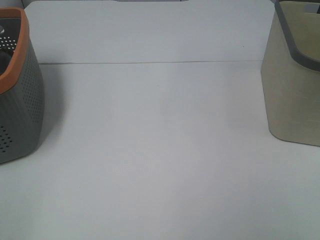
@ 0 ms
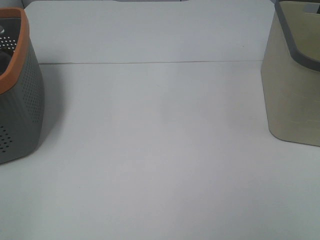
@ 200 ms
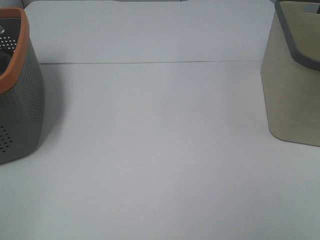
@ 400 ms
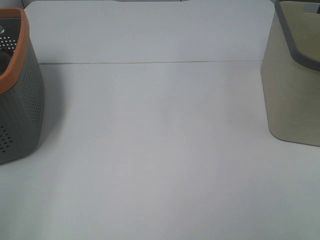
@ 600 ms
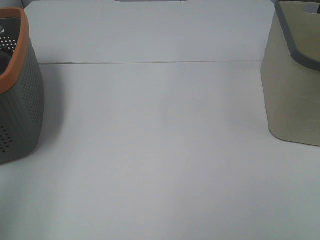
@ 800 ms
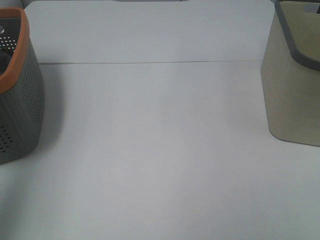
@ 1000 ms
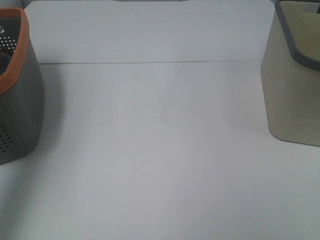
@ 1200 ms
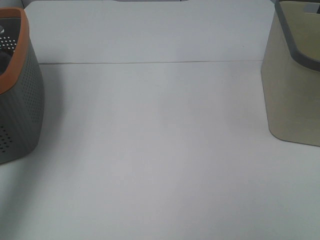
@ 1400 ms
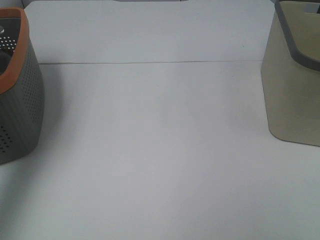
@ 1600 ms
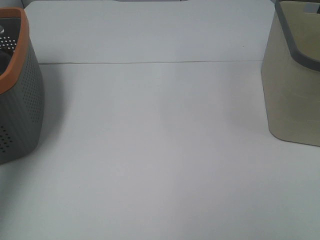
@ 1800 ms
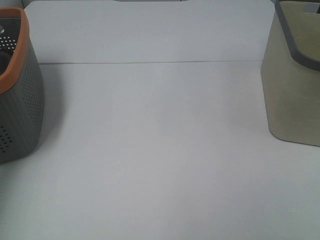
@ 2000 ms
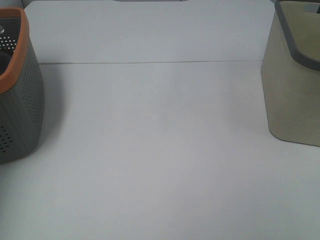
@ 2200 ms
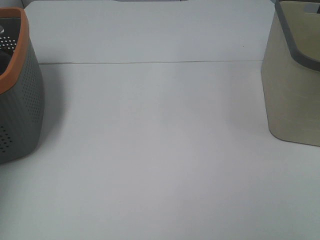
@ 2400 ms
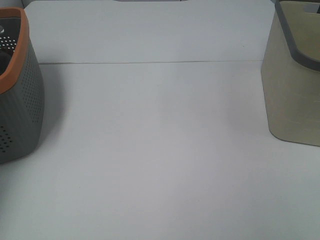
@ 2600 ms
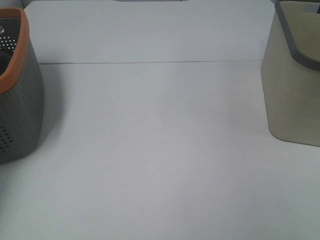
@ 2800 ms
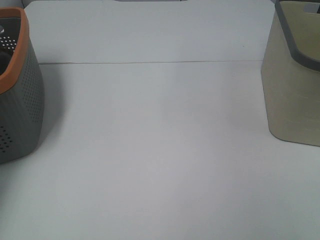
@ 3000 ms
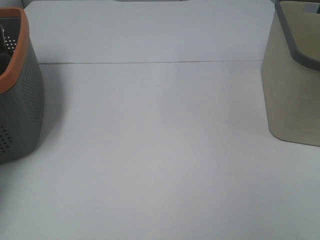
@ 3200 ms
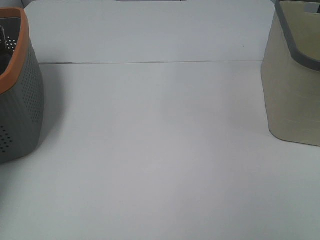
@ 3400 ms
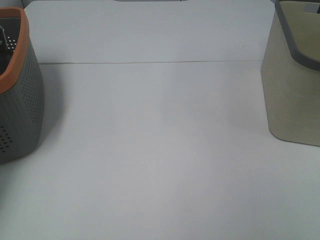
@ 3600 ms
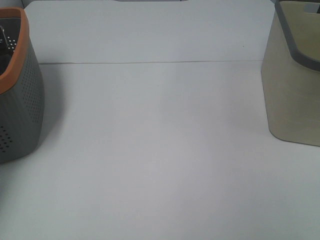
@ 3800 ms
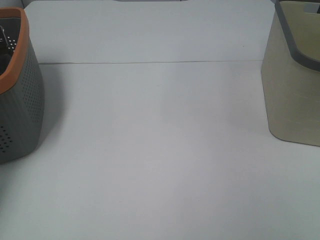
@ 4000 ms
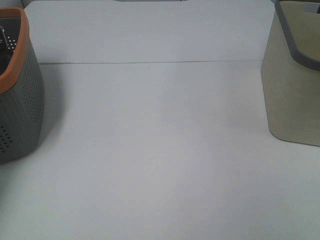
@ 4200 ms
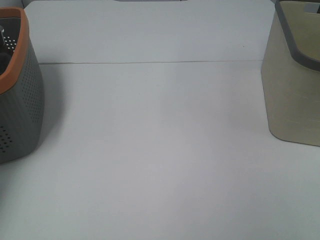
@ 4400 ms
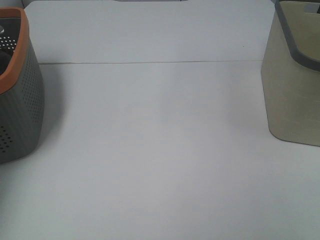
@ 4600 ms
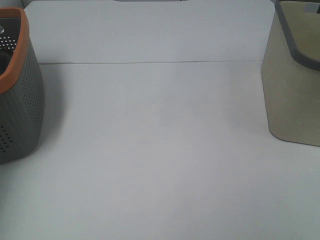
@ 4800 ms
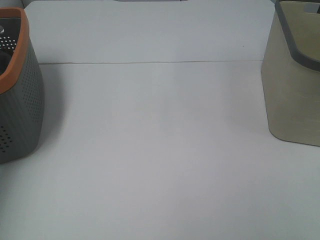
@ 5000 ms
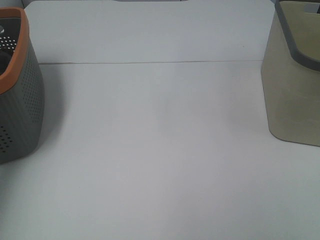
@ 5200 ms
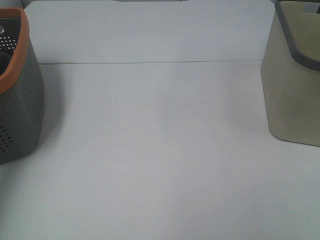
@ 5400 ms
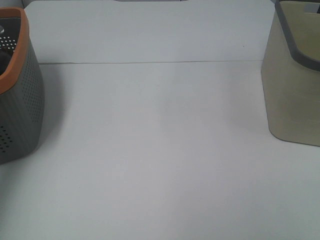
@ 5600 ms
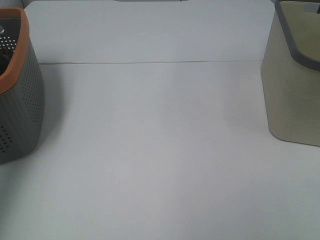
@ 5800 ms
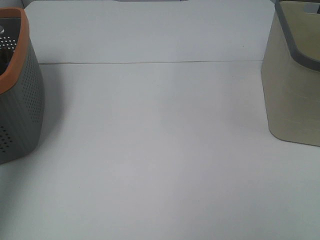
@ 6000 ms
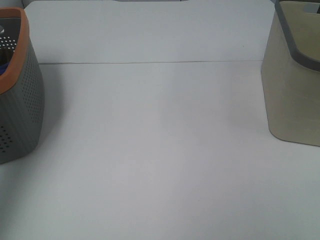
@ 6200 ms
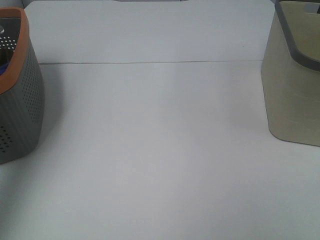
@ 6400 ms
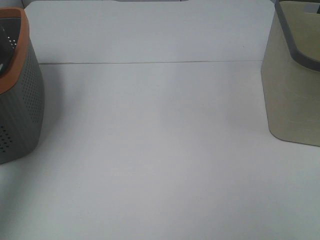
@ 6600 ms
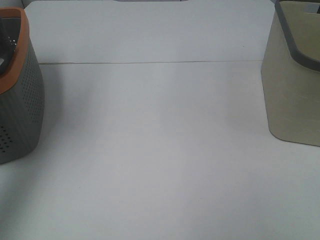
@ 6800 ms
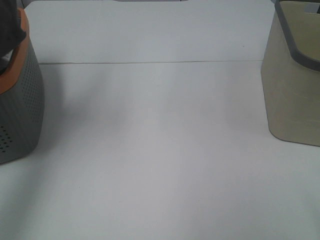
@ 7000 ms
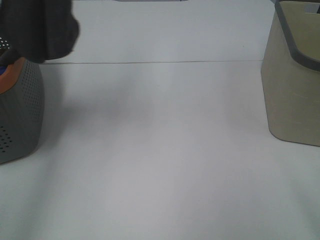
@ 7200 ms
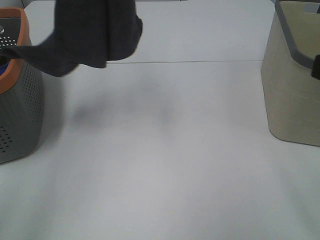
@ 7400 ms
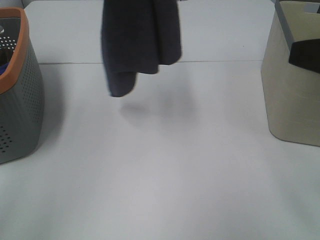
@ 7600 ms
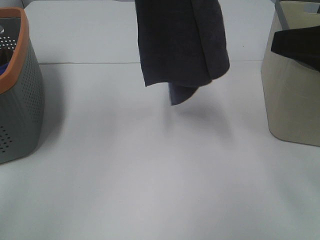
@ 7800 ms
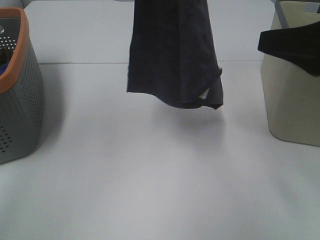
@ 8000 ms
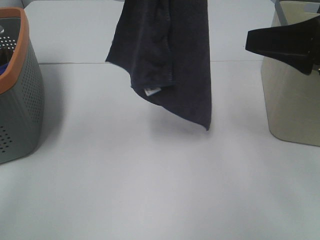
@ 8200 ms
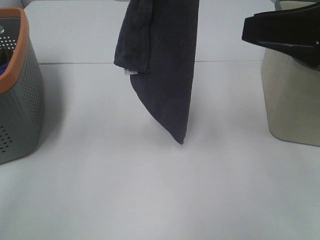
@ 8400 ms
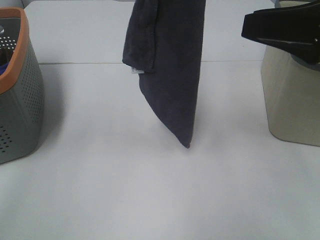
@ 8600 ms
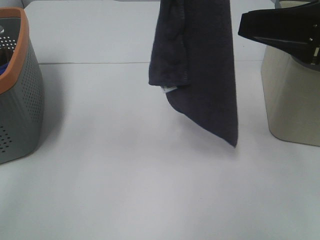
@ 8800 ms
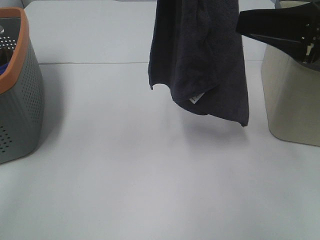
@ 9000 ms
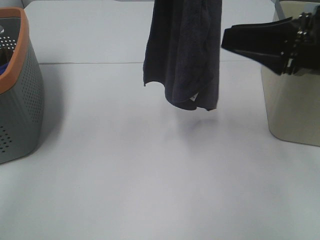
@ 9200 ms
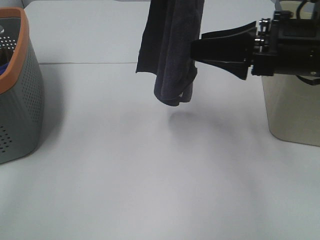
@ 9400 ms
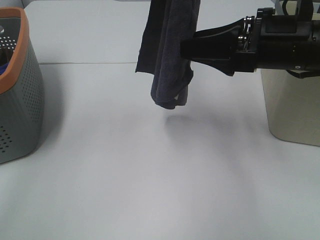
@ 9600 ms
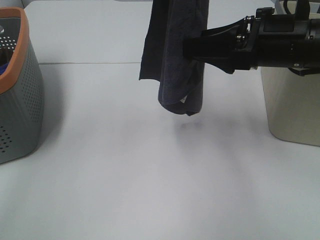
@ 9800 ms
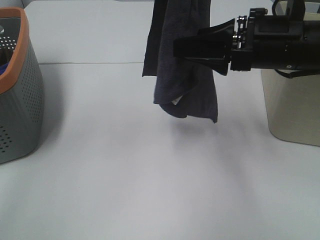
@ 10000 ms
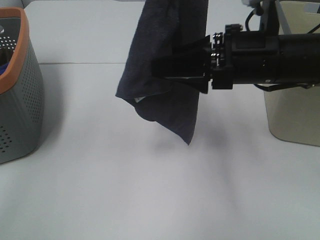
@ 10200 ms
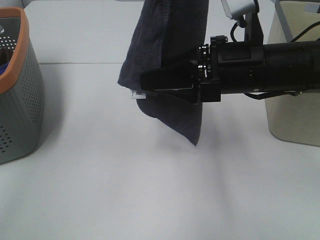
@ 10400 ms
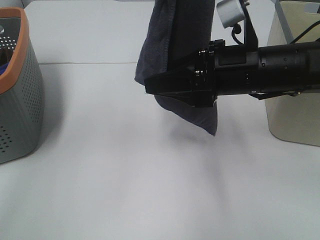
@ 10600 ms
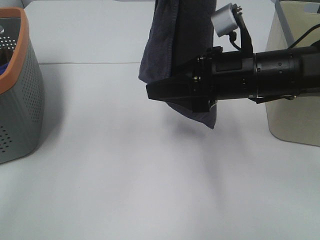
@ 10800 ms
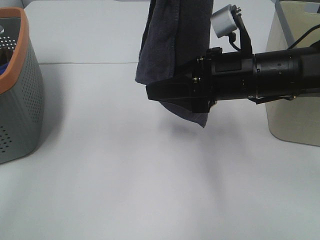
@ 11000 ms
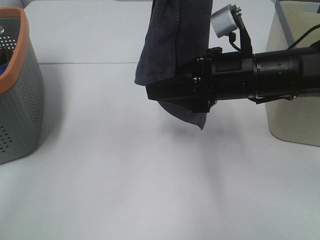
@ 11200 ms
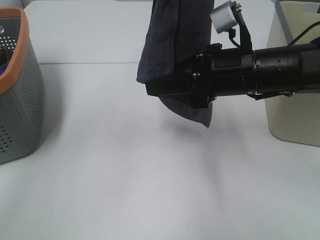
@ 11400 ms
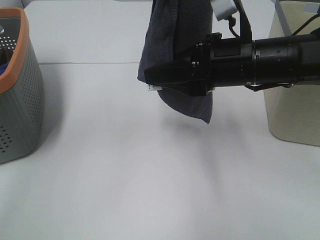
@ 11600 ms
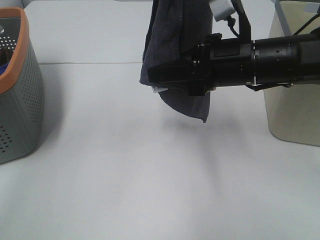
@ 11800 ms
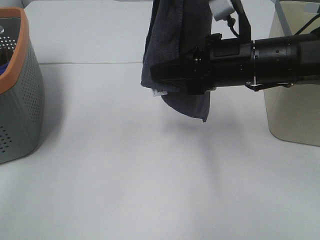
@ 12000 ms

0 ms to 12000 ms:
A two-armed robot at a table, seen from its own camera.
Task of the whole recording: Remove the towel and place it.
Step, 6000 ms to 10600 ms: Right hand: grab a corner of the grey towel and straighten it.
0 ms to 1600 ms: The left gripper shifts some 35 cm forward and upward.
1600 ms to 3000 ms: The left gripper moves downward and forward, some 30 cm.
4400 ms to 6000 ms: The left gripper goes approximately 35 cm upward and backward.
6000 ms to 7600 ms: The left gripper travels to the right by approximately 25 cm. The right gripper heads forward, covering roughly 15 cm.
7600 ms to 9000 ms: The right gripper shifts roughly 10 cm forward, while the left gripper is displaced to the right by about 5 cm.
9000 ms to 10400 ms: The right gripper shifts approximately 10 cm to the left and downward.
10400 ms to 12000 ms: The right gripper closes.

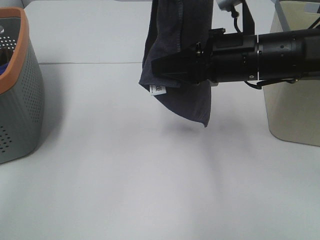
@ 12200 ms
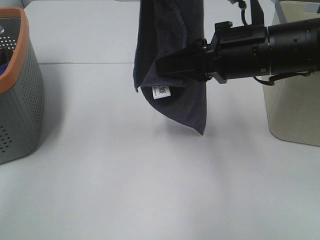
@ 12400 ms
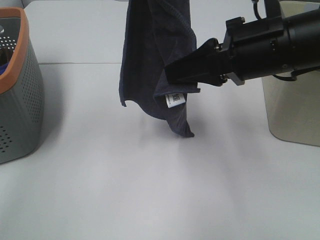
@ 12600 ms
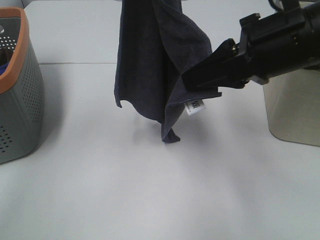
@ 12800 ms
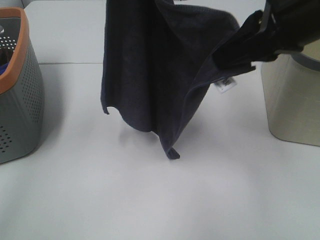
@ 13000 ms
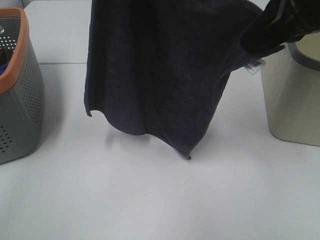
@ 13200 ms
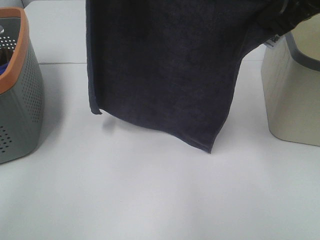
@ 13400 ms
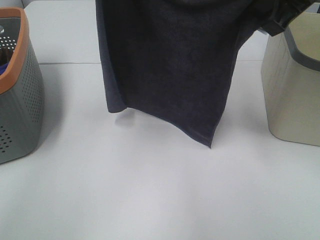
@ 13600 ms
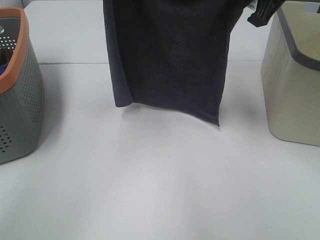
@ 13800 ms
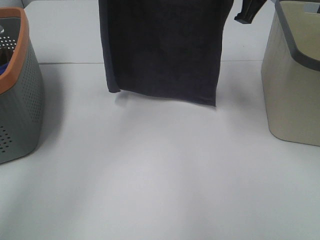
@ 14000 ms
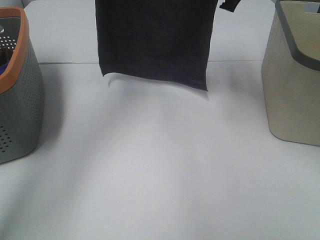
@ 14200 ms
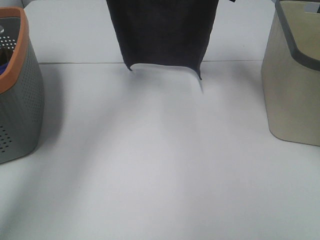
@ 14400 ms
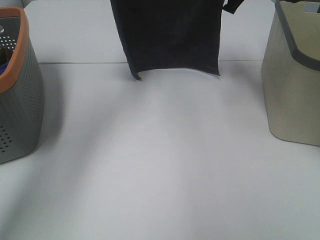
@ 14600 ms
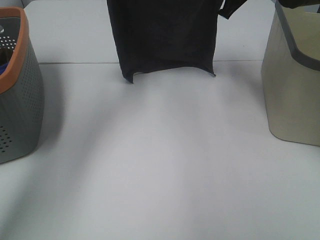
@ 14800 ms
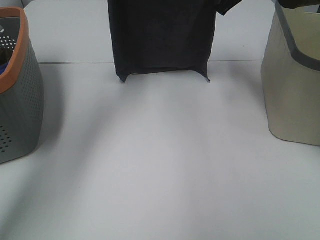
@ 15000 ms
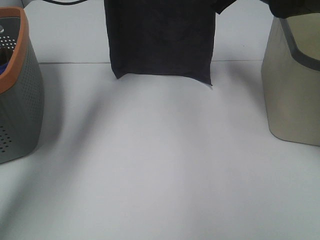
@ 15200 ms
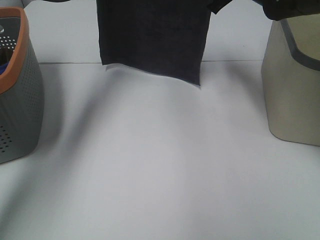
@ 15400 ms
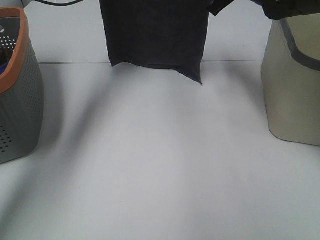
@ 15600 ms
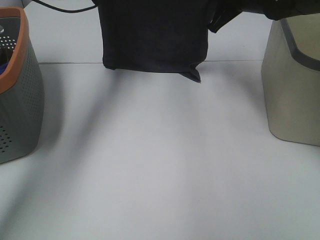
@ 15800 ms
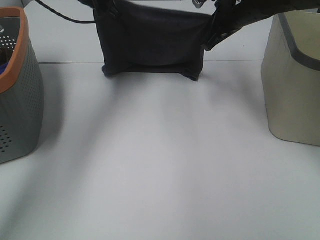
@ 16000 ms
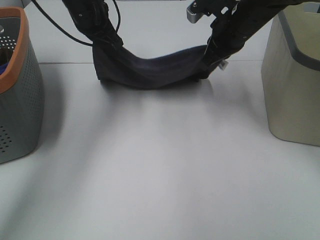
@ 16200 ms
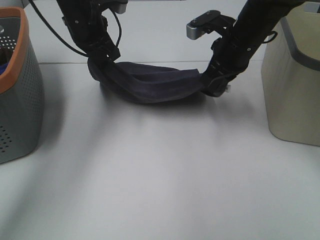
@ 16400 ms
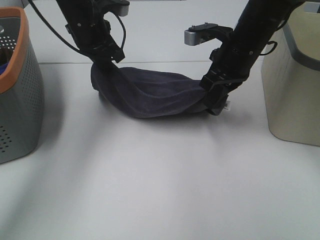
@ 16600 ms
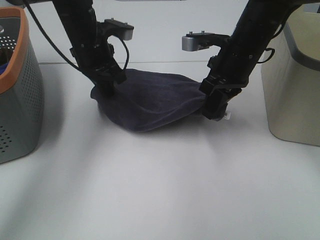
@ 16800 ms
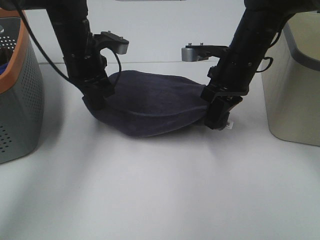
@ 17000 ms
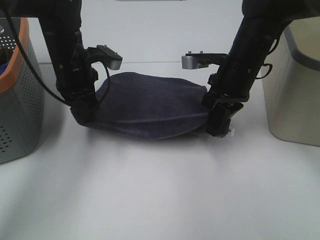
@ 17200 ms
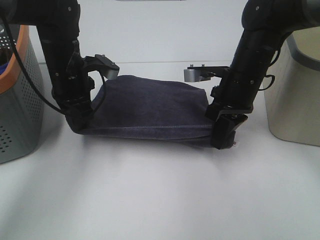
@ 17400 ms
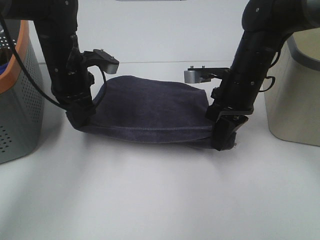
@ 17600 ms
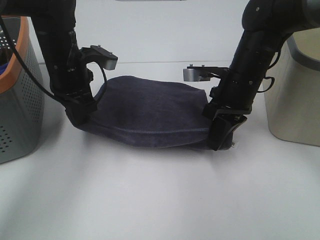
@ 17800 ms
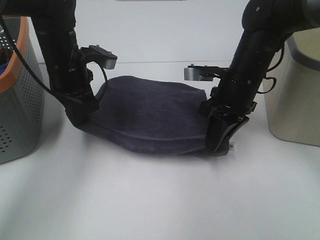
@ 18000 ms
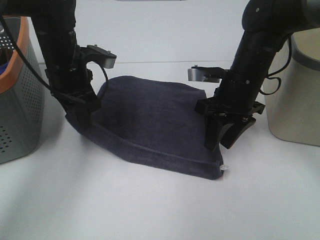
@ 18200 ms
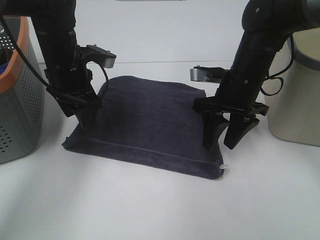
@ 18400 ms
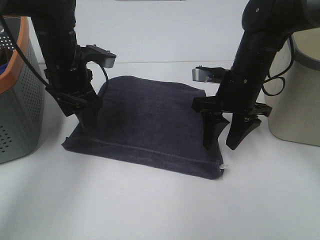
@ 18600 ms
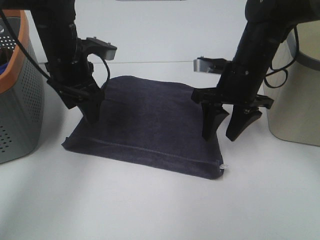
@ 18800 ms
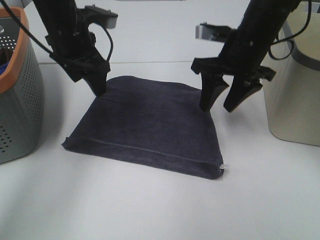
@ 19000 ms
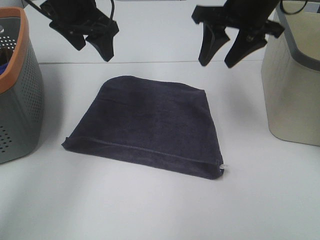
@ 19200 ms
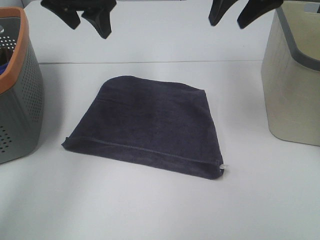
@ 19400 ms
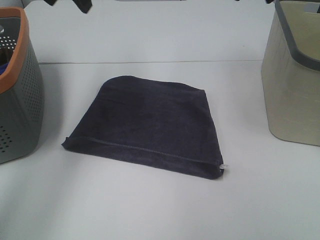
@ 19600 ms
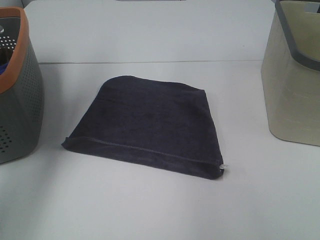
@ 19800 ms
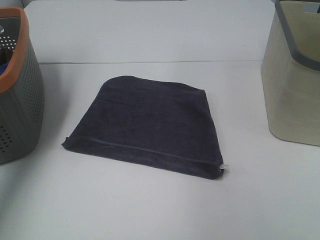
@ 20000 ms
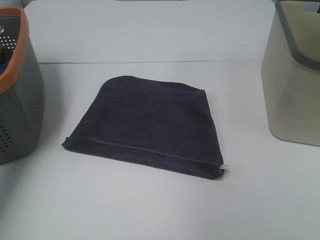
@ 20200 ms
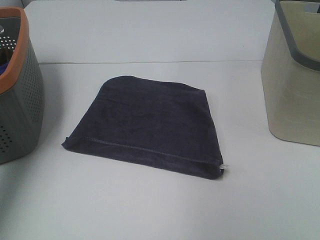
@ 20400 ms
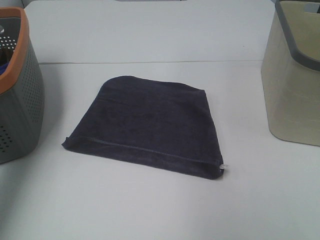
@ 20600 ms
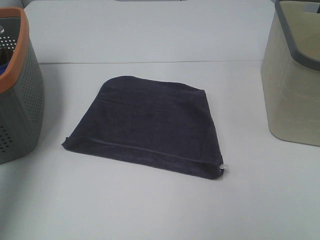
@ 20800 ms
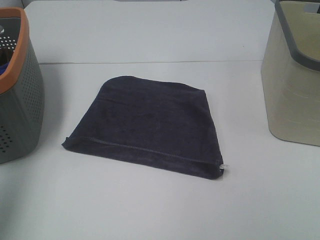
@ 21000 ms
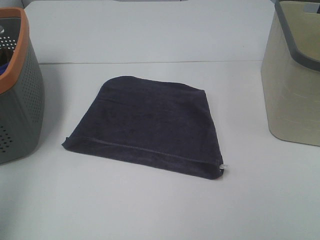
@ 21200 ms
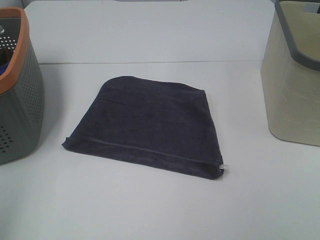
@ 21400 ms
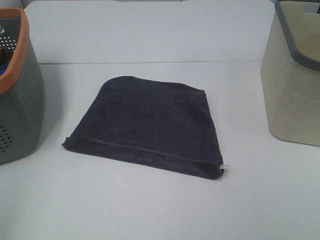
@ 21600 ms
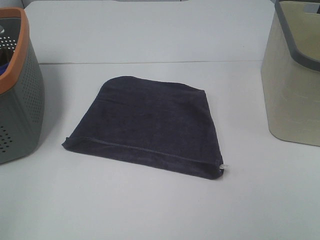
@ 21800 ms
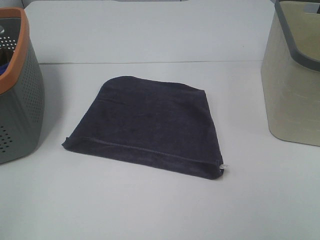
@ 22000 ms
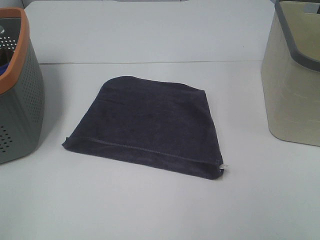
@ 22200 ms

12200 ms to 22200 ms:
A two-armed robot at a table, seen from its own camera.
Task of the whole recording: Remove the towel and place it.
Step, 12200 ms to 13800 ms: Right hand: spread the grey towel flat on the table.
Step, 12200 ms to 14000 ms: Left hand: spread the grey towel flat on the table.
12200 ms to 13600 ms: The right gripper is displaced upward and to the right by approximately 15 cm, while the left gripper goes approximately 10 cm downward and forward.
13600 ms to 15000 ms: The two grippers go roughly 15 cm forward and downward.
15000 ms to 16400 ms: The two grippers go roughly 10 cm downward and backward.
16400 ms to 18000 ms: The left gripper is displaced backward and downward by approximately 10 cm. Meanwhile the right gripper ends up about 5 cm from where it was, and opens up.
18000 ms to 19400 ms: Both grippers move upward, some 20 cm. The right gripper opens its fingers. The left gripper opens up.
19400 ms to 20800 ms: The left gripper shifts some 25 cm backward and to the left. Meanwhile the right gripper heads backward and to the right, covering approximately 30 cm.
20800 ms to 22200 ms: The left gripper travels backward and downward by about 25 cm.
